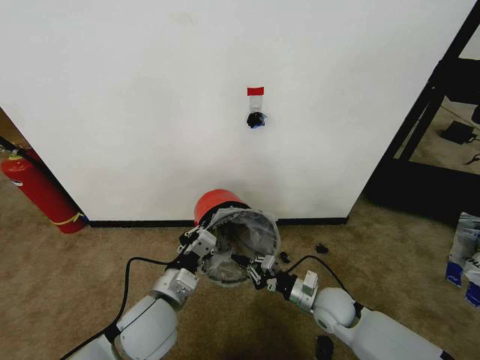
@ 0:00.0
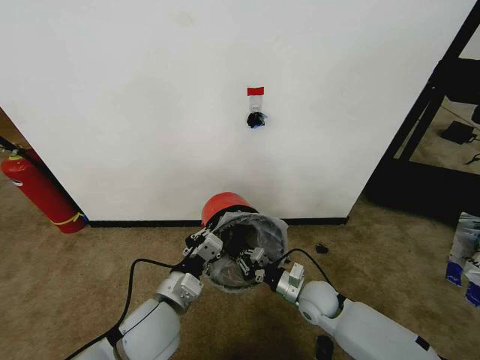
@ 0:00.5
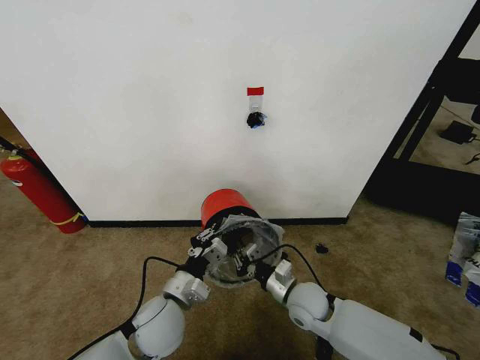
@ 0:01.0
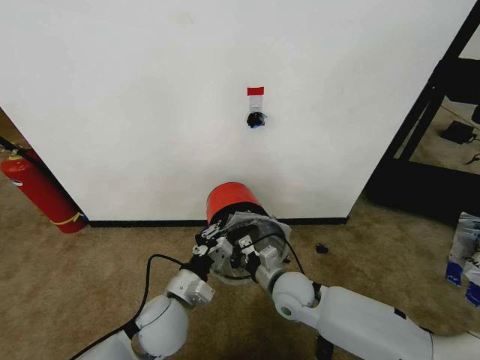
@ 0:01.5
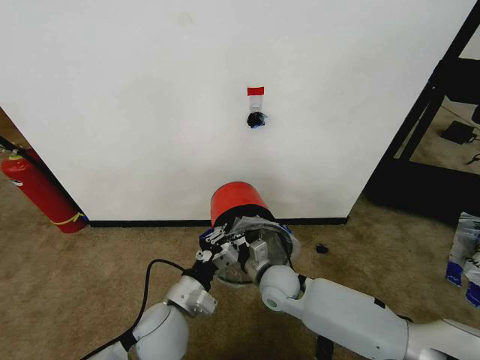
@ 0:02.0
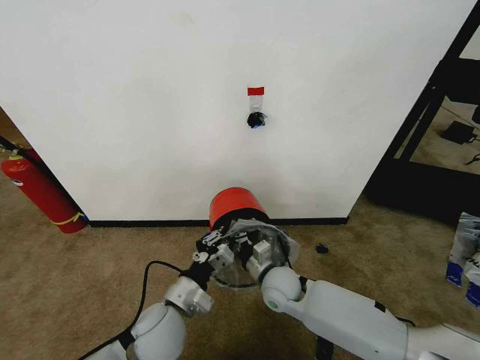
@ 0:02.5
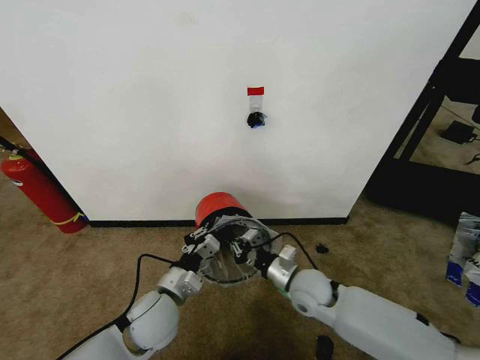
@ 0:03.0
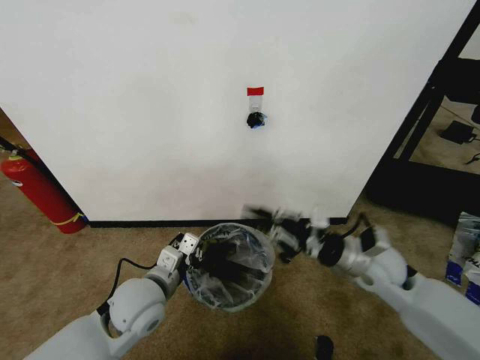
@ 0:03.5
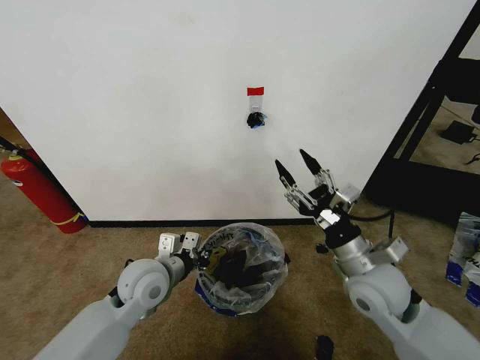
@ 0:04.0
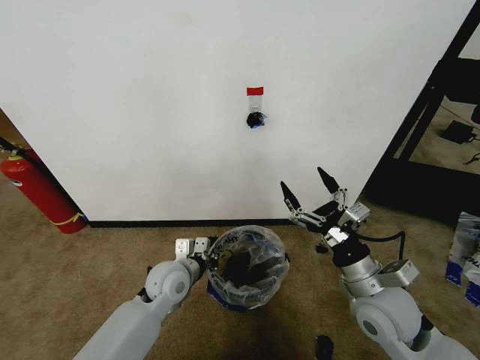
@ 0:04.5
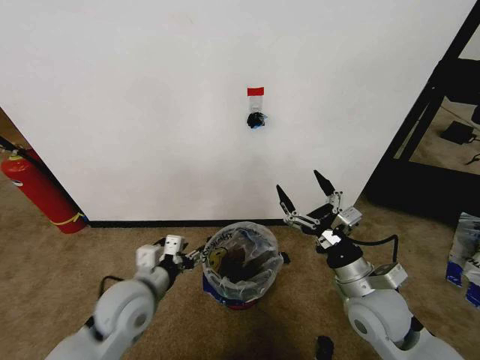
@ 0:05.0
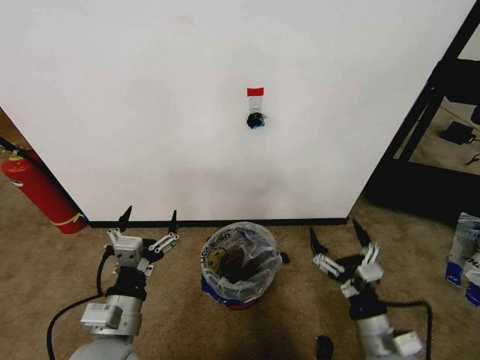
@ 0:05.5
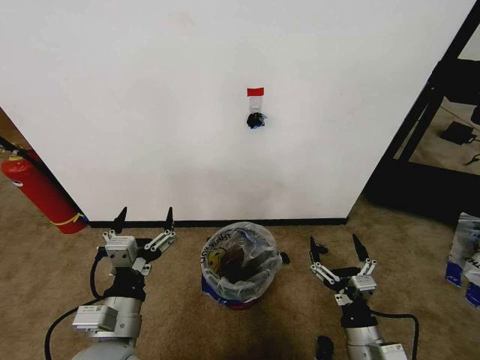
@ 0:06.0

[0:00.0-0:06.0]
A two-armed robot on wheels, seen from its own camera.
Task of the whole recording: Pick up the garbage bag from the wall and place it over the trash bin.
0:00.0 to 0:02.0: The right gripper travels to the left by roughly 15 cm.
0:02.0 to 0:04.0: The left gripper goes approximately 10 cm forward and to the left. Meanwhile the right gripper goes roughly 20 cm to the right and upward, and opens.
0:04.0 to 0:06.0: The left gripper moves backward, about 15 cm, and opens its fingers; the right gripper heads downward and backward, covering approximately 20 cm.

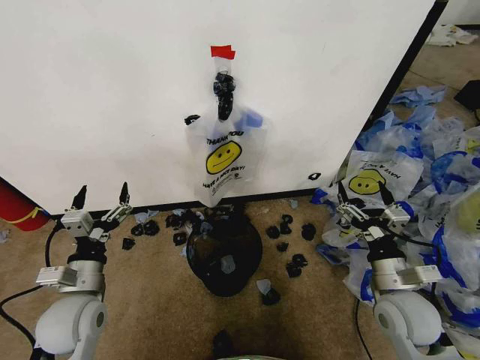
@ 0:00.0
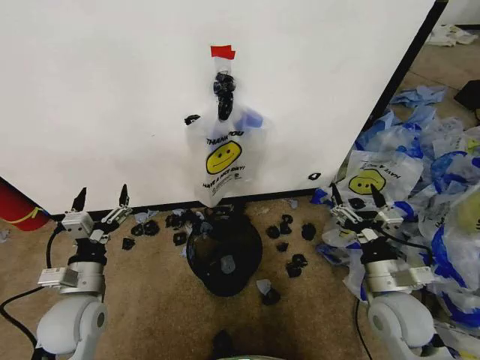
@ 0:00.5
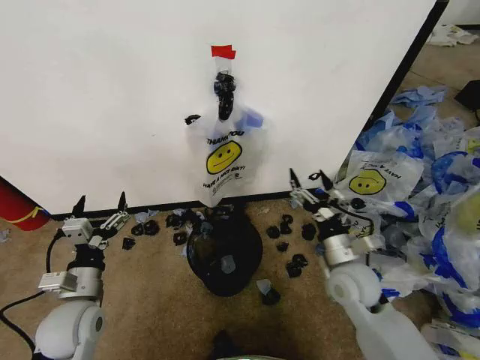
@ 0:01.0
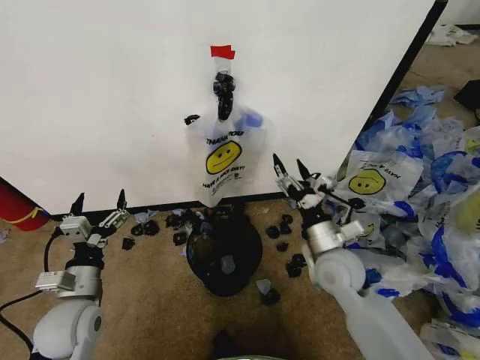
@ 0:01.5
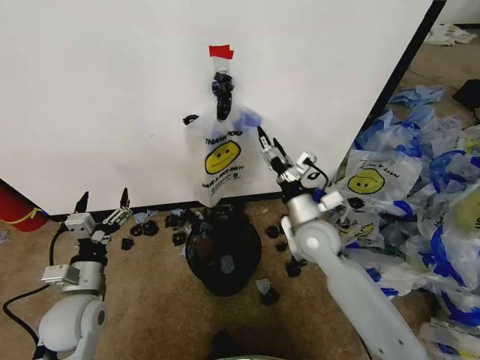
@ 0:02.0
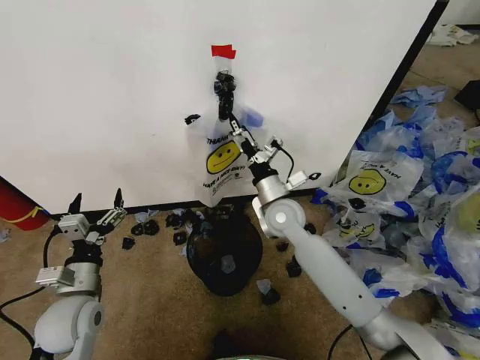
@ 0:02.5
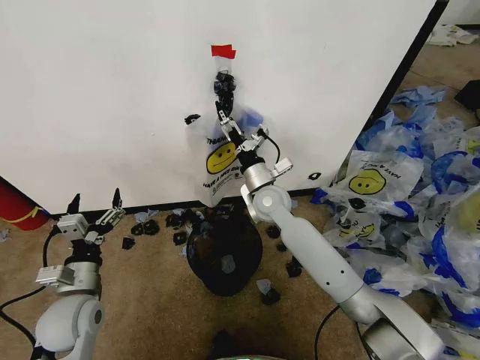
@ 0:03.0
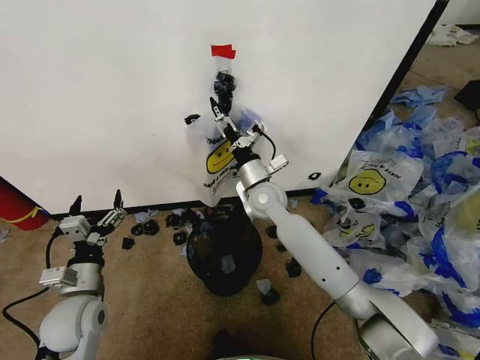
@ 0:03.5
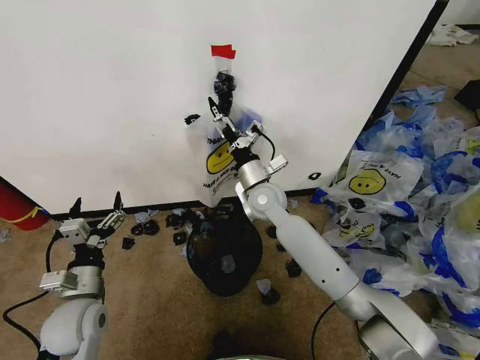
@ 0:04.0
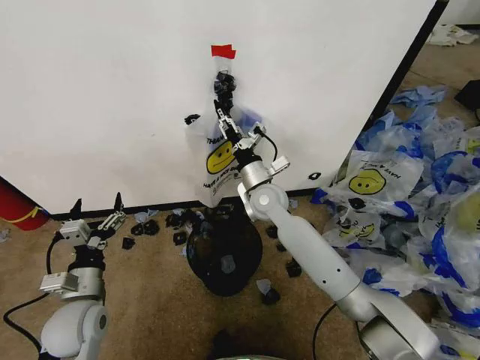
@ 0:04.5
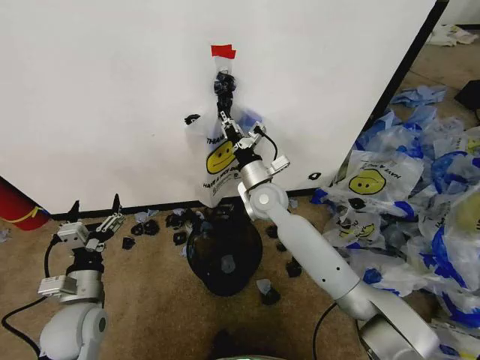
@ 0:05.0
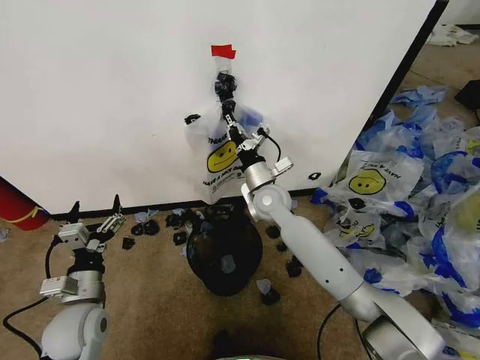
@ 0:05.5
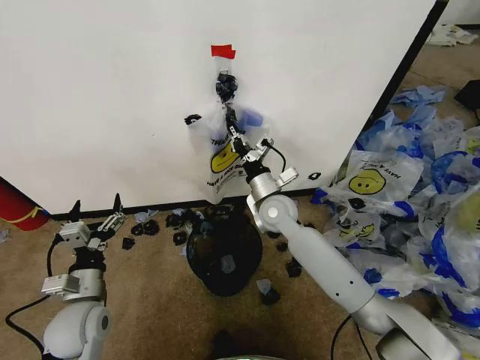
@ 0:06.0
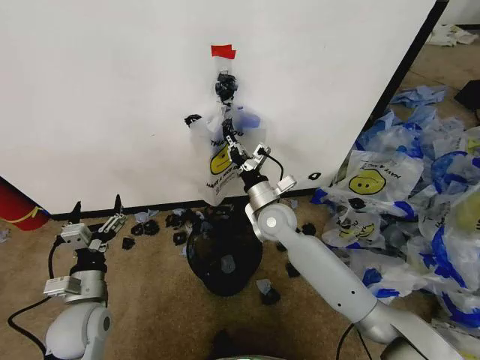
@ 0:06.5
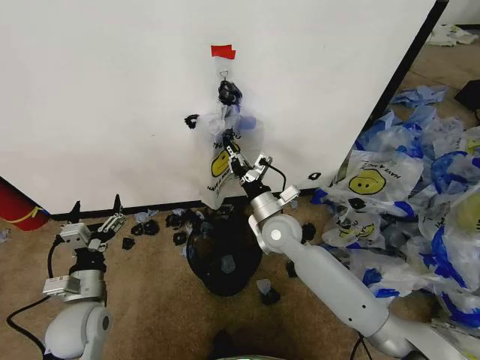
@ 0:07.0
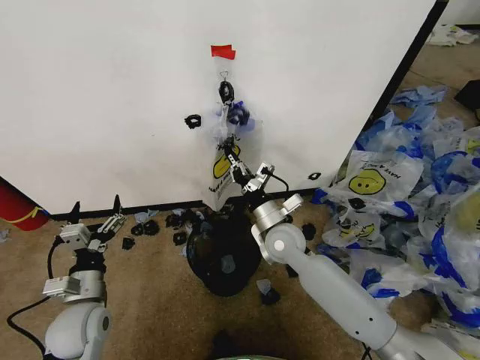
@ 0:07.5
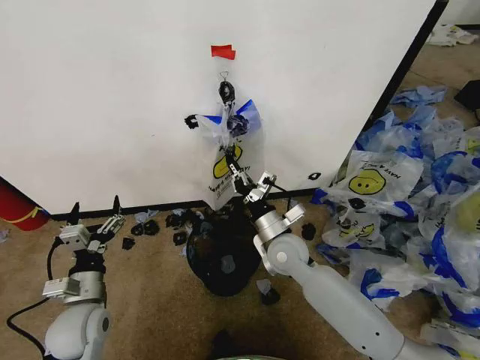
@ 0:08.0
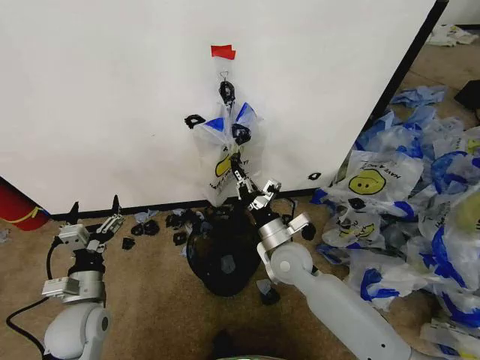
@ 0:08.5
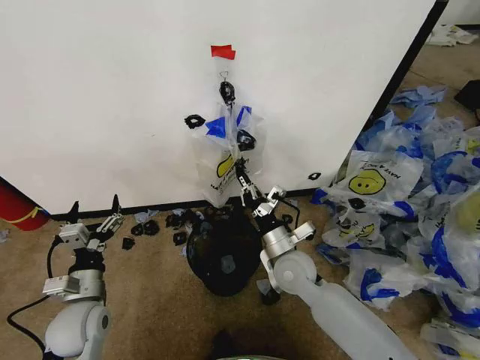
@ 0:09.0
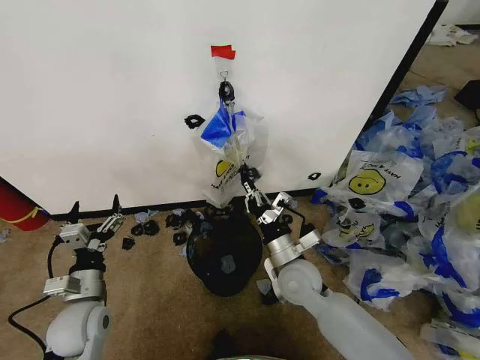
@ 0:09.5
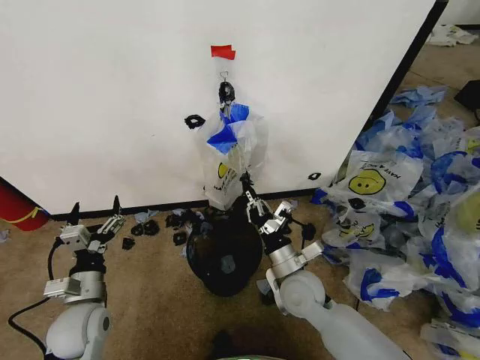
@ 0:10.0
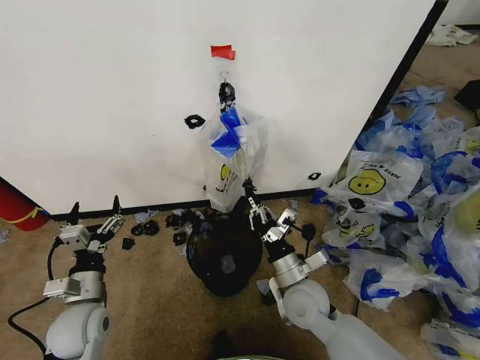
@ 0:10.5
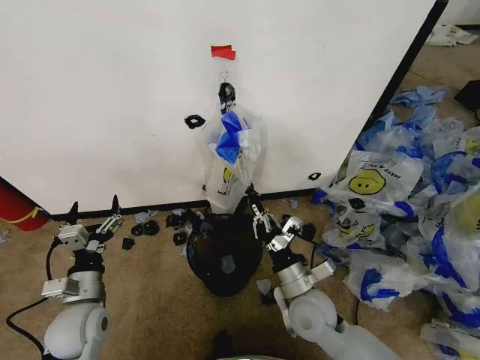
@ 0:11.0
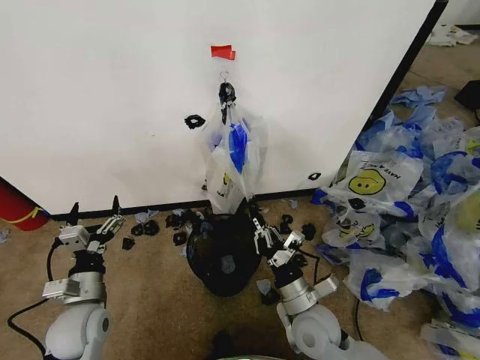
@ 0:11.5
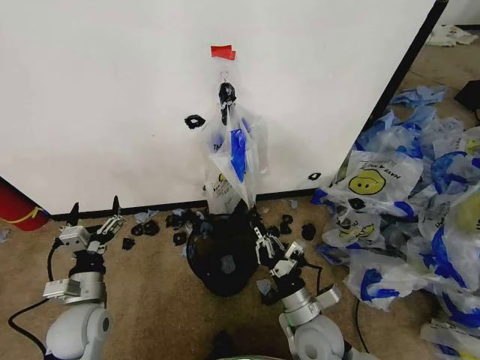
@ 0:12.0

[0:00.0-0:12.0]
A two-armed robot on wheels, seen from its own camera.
Task of the whole recording: Pick up the garbage bag from the wall and place it over the trash bin.
0:02.0 to 0:04.0: The right gripper heads to the left and forward, covering about 15 cm.
0:04.0 to 0:06.0: The right gripper closes.
0:06.0 to 0:08.0: The right gripper travels backward by roughly 10 cm.
0:08.0 to 0:10.0: The right gripper is displaced backward by roughly 5 cm.
0:10.0 to 0:12.0: The right gripper shifts roughly 10 cm backward.

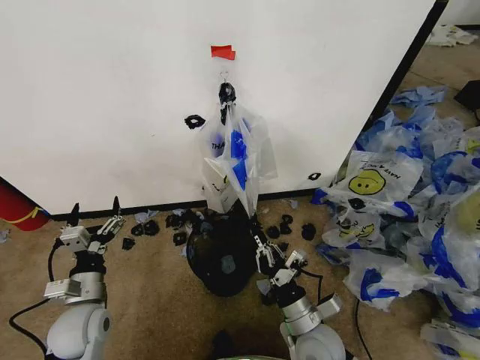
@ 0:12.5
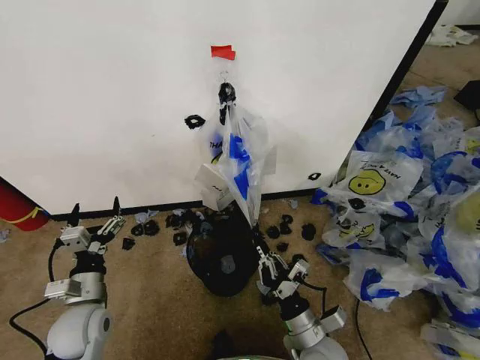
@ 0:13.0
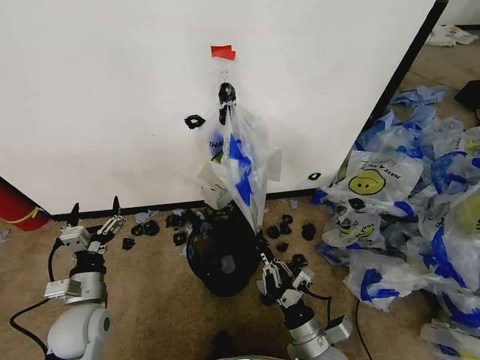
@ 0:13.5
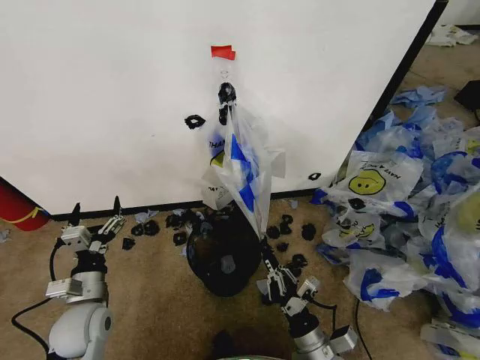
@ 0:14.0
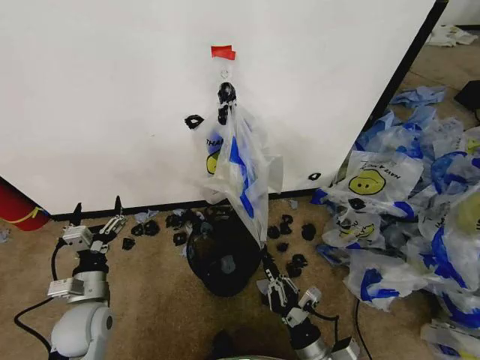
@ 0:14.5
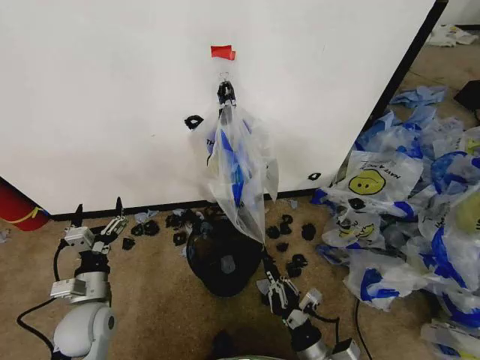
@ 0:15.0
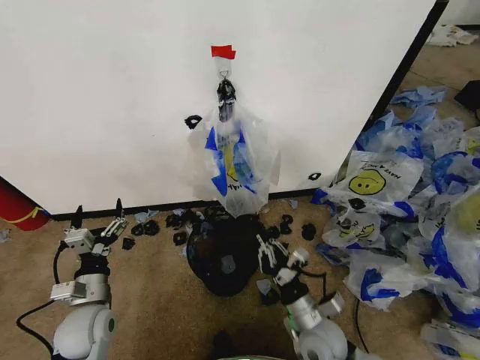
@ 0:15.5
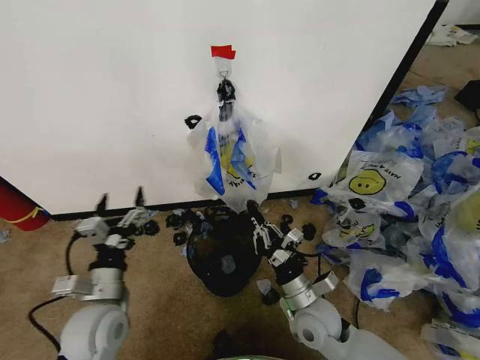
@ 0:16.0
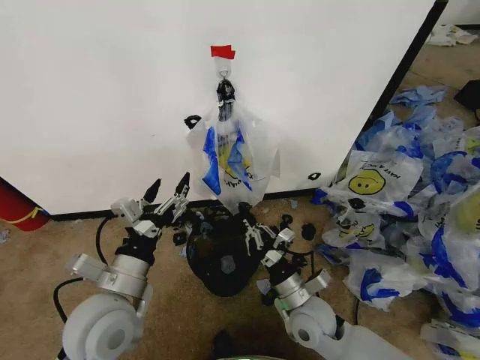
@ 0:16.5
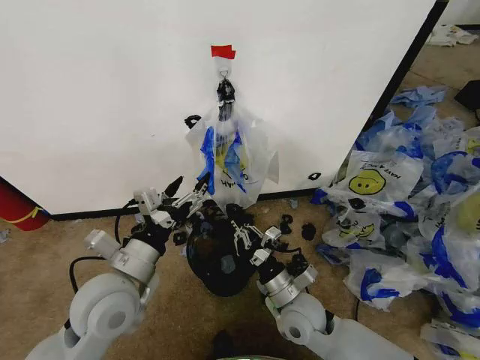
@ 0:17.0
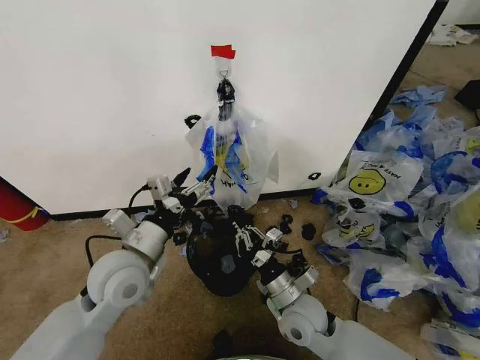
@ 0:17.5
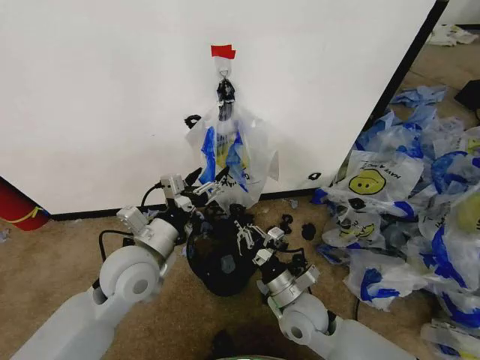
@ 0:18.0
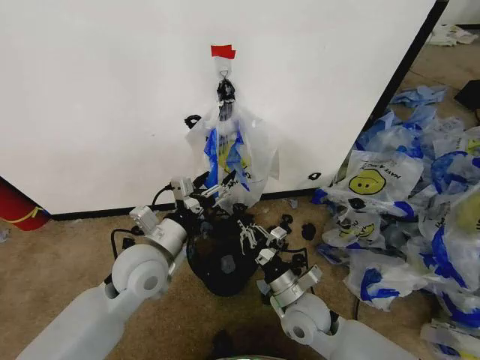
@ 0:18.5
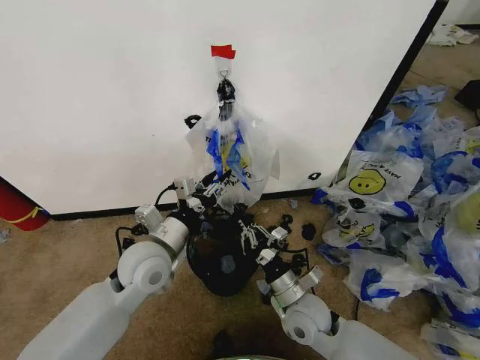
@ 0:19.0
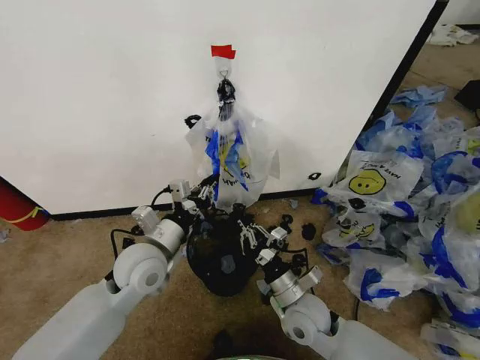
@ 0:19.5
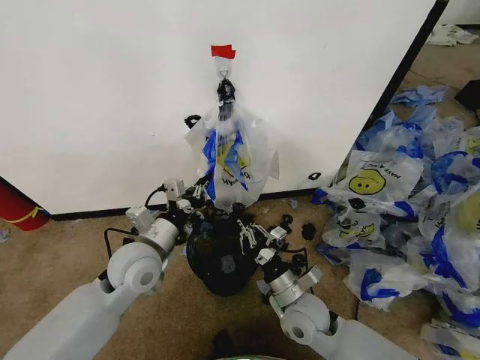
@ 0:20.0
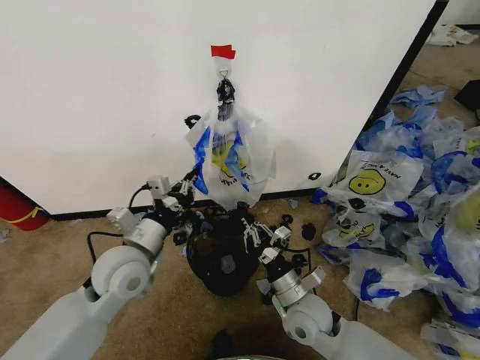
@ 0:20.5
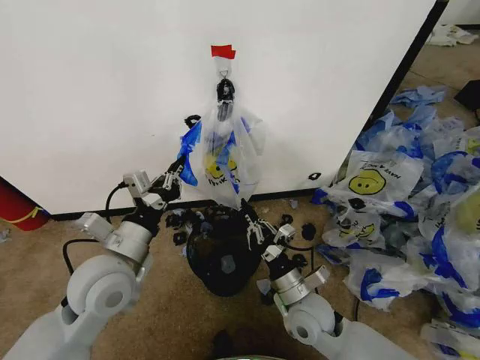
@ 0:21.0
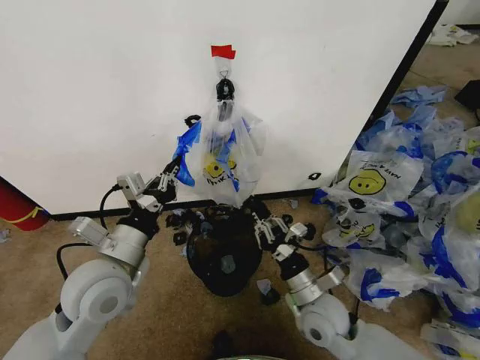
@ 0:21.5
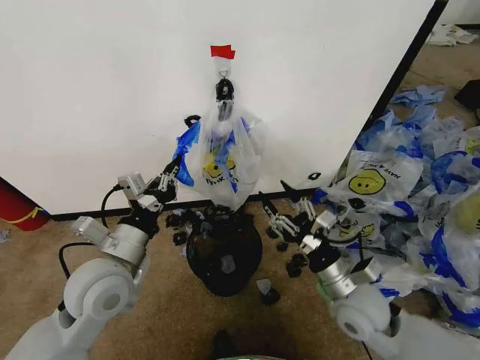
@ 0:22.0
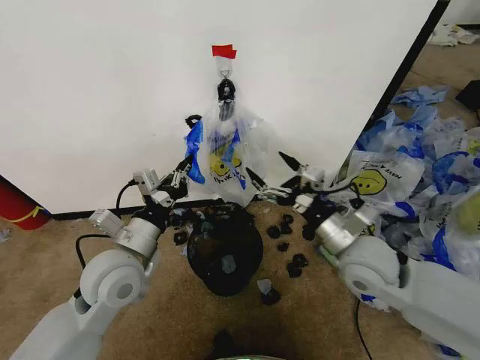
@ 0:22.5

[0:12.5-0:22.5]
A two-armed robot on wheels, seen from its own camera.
Task of the whole recording: Pick up the garbage bag from the wall and place it over the trash bin.
0:12.5 to 0:14.5: The right gripper is displaced backward by approximately 5 cm.
0:14.5 to 0:16.5: The left gripper is displaced upward and to the right by about 15 cm, while the right gripper moves forward and upward, roughly 15 cm.
0:16.5 to 0:18.5: The left gripper travels forward by roughly 10 cm.
0:18.5 to 0:20.5: The left gripper closes its fingers.
0:20.5 to 0:22.5: The right gripper moves upward and to the right, about 20 cm, and opens up.
